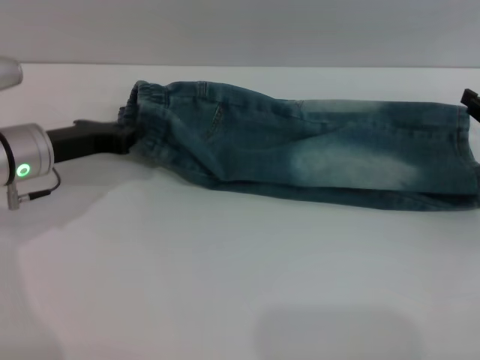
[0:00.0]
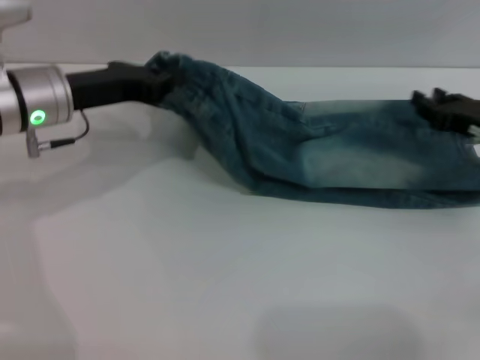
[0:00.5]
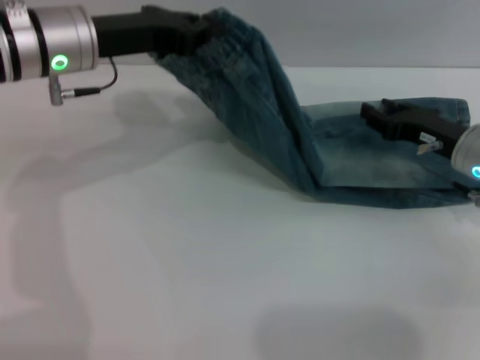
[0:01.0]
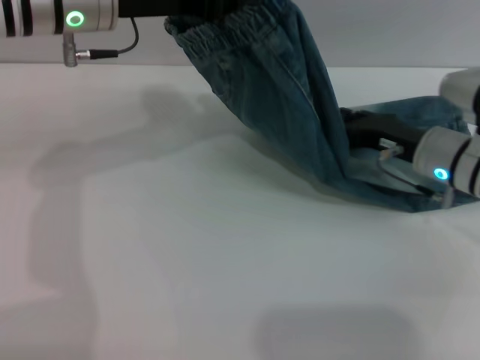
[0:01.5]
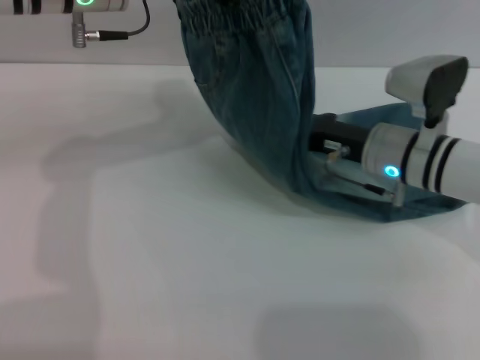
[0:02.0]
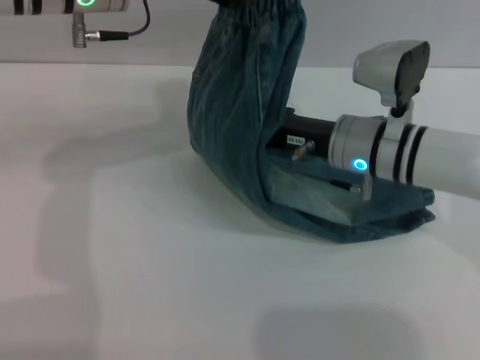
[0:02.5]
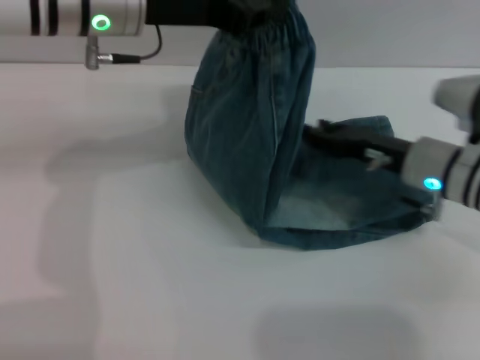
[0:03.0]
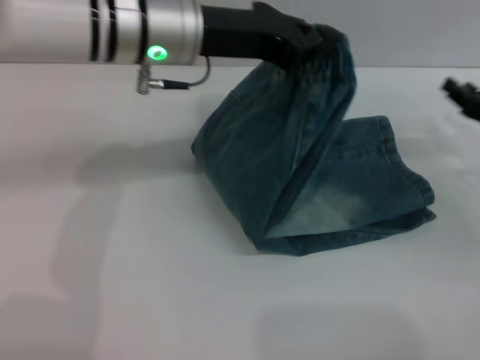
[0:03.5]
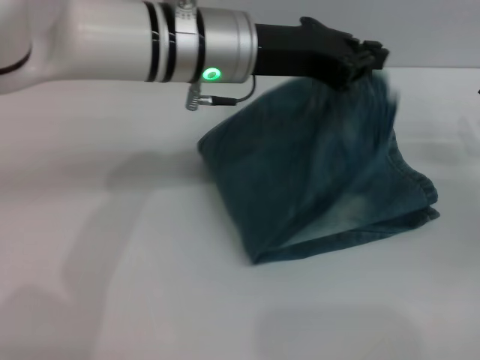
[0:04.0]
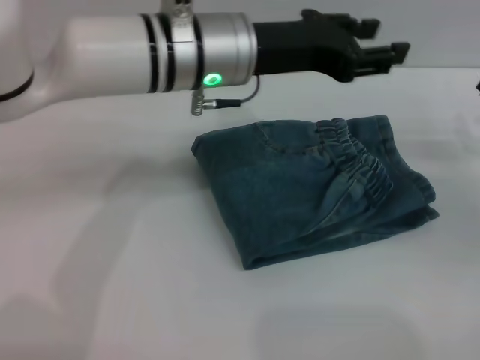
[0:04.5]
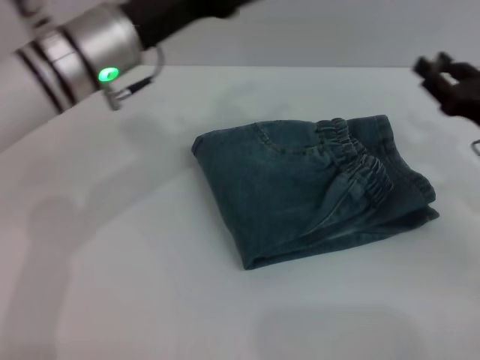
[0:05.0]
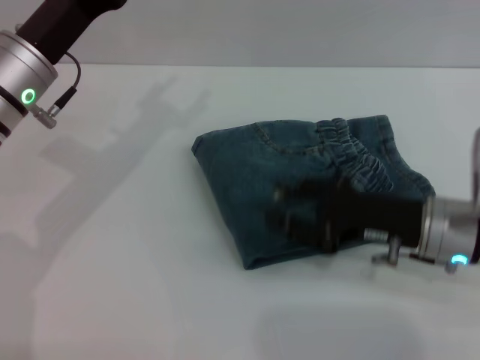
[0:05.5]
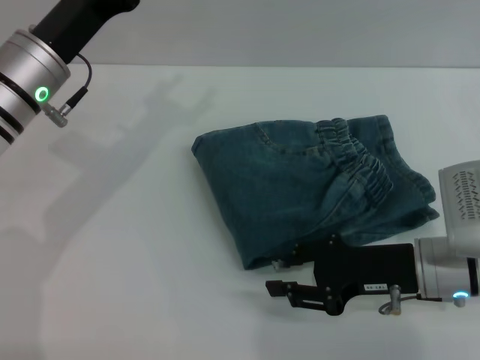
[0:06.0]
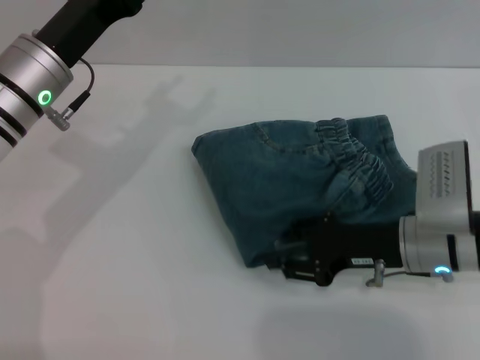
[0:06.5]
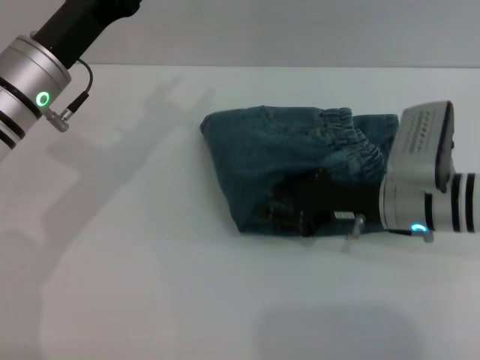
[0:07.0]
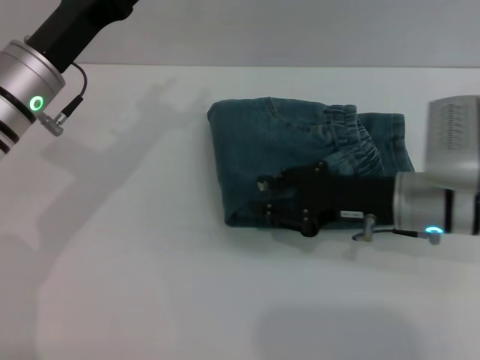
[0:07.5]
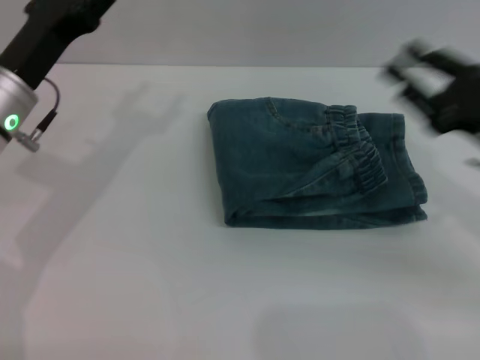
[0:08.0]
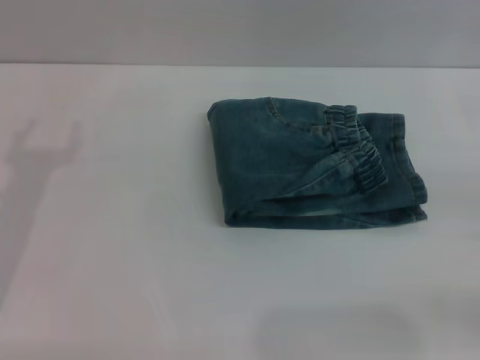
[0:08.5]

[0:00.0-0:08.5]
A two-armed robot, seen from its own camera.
Step, 0:00.0 to 0:04.0: Fold the pants from left to right with the left gripper.
Step, 0:04.5 to 0:07.5: Place the folded trousers onto the center area with the right grippers.
0:00.0 to 0:02.0: The left gripper is displaced upward and to the right by roughly 20 cm. Meanwhile the right gripper shifts about 20 cm to the left.
0:02.0 to 0:04.0: The left gripper heads to the right, covering roughly 10 cm, while the right gripper shifts some 20 cm to the right.
0:04.0 to 0:06.5: The right gripper shifts about 15 cm to the left. The left gripper moves to the left and downward, some 15 cm, and opens up.
0:06.5 to 0:08.5: The right gripper shifts about 20 cm to the right, while the left gripper is displaced to the left, backward and downward by about 15 cm.

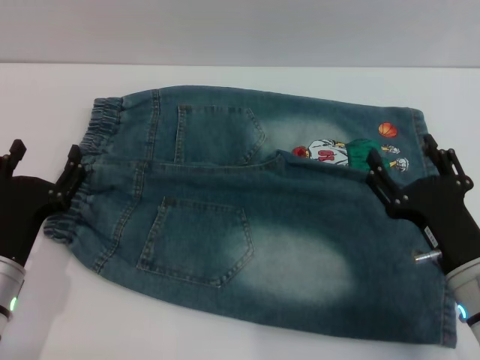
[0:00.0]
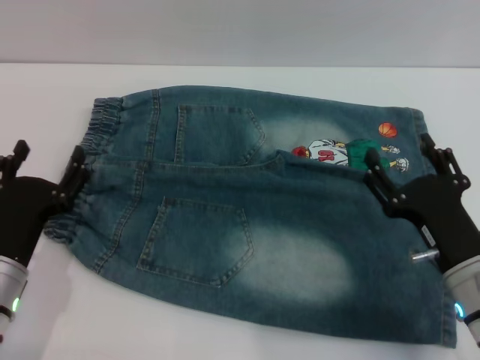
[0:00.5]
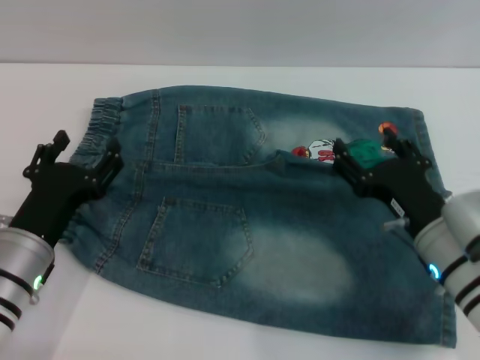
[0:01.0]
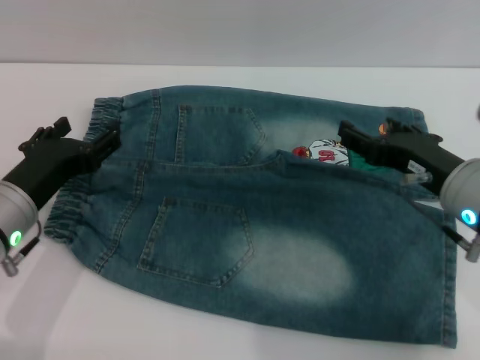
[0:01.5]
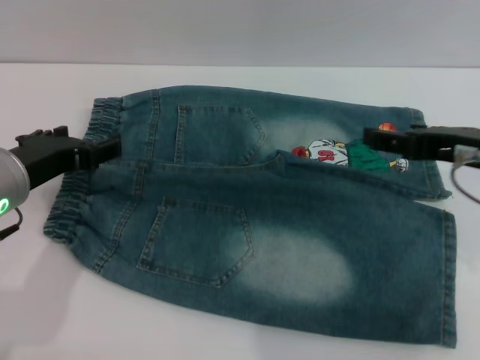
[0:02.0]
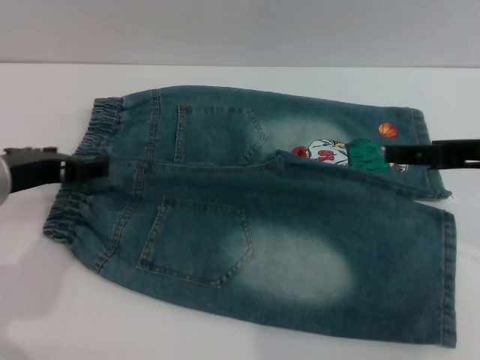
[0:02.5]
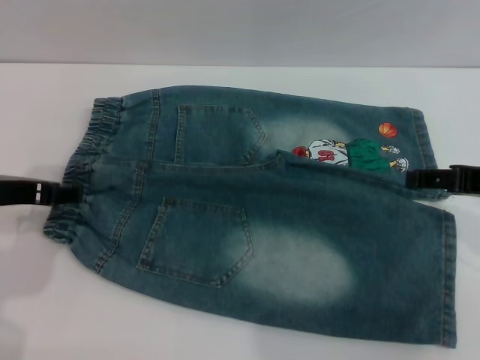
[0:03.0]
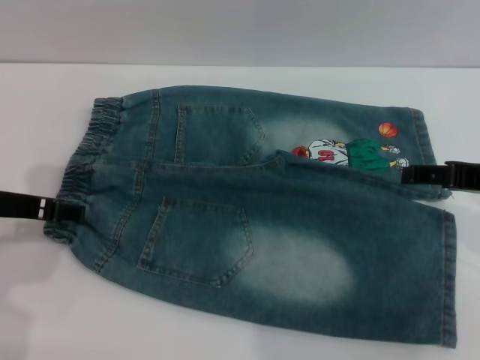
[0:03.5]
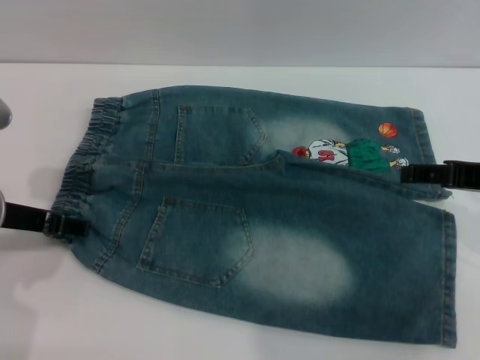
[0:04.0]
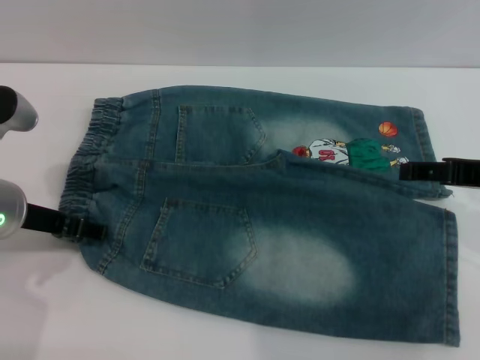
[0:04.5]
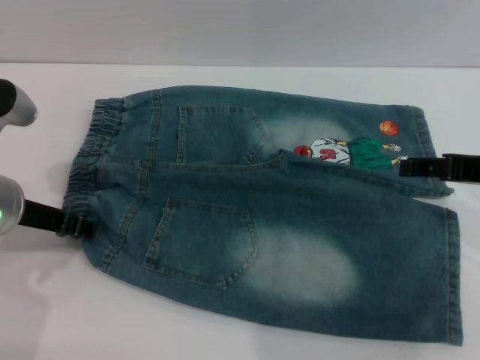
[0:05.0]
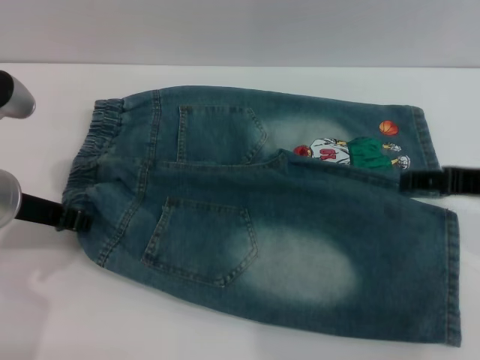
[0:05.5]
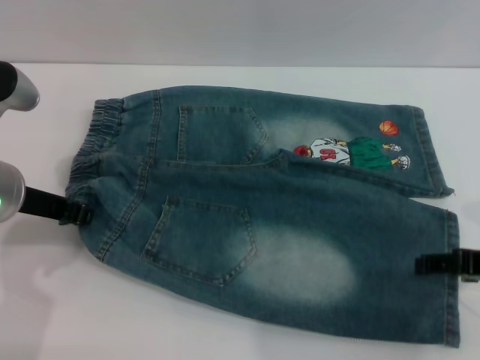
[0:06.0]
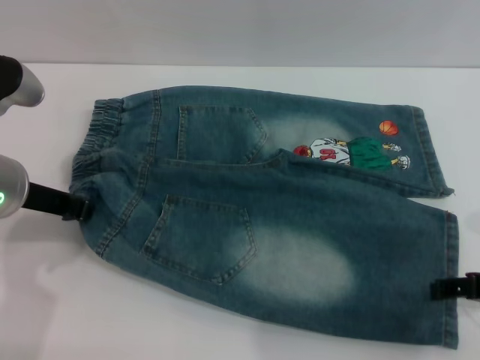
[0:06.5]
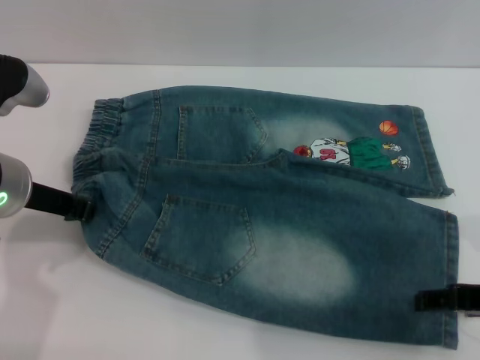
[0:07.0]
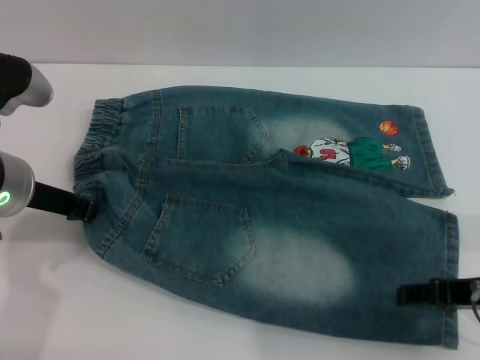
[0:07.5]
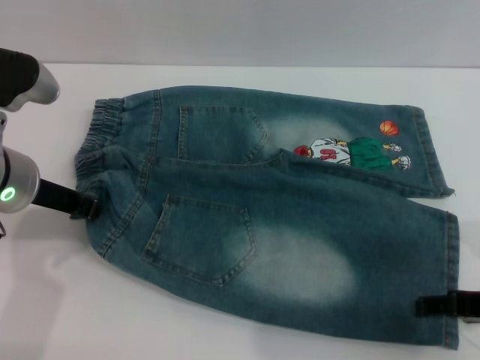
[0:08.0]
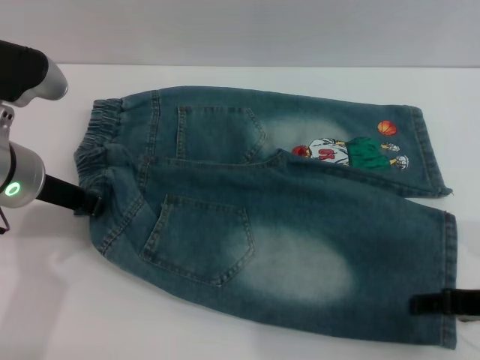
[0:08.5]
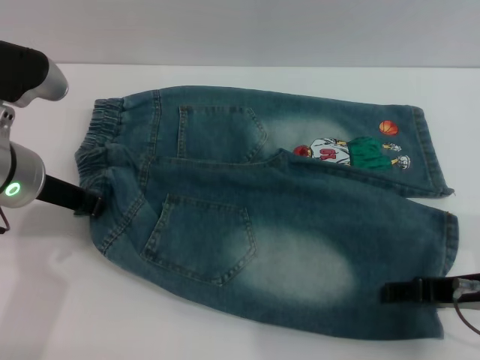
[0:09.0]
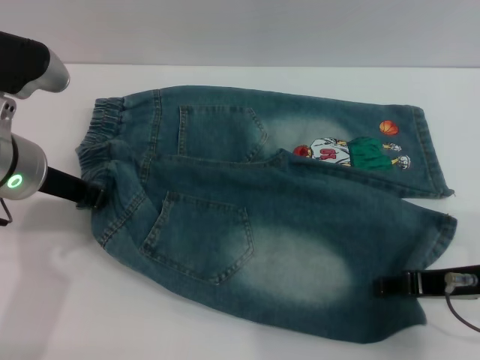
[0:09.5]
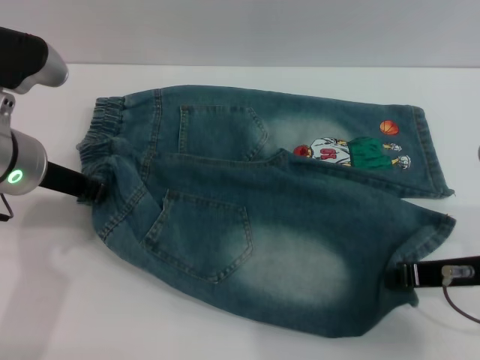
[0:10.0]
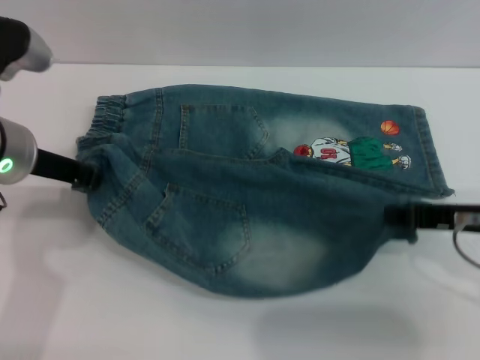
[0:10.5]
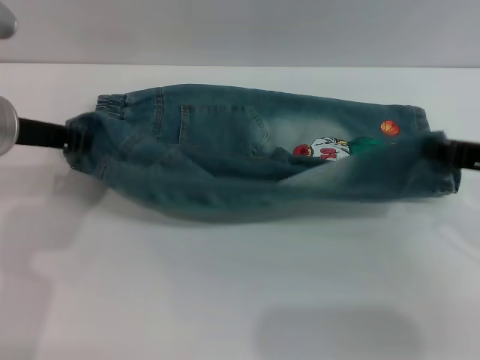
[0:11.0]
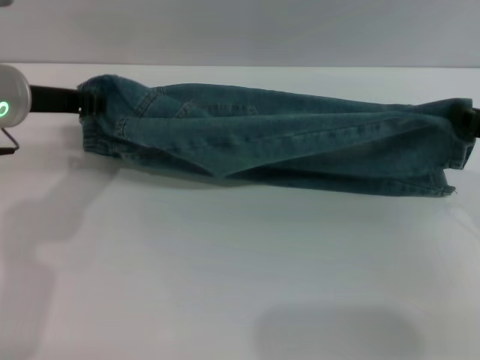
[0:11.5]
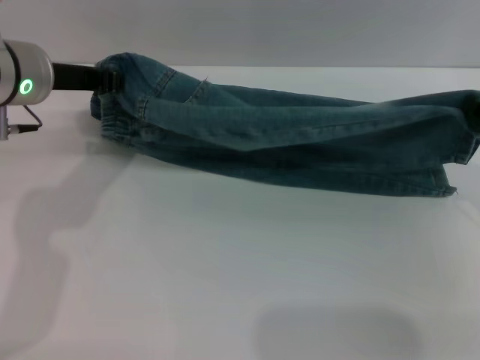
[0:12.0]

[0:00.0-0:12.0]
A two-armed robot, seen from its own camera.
0:00.0 to 0:02.0: The right gripper is displaced upward by some 15 cm; the left gripper shifts roughly 15 cm upward and forward.
0:04.0 to 0:06.0: The left gripper closes its fingers. Meanwhile the right gripper moves about 5 cm.
0:06.0 to 0:08.0: The grippers make only small movements.
0:08.0 to 0:10.0: The right gripper closes its fingers.
0:10.0 to 0:12.0: The left gripper goes about 5 cm forward; the right gripper shifts some 5 cm to the right.

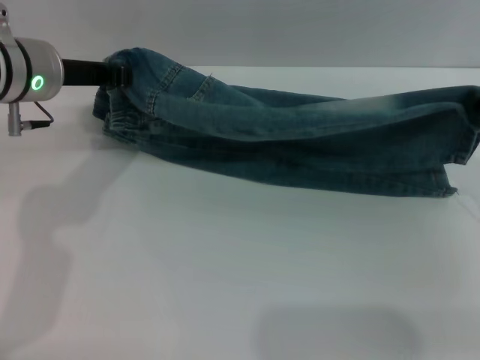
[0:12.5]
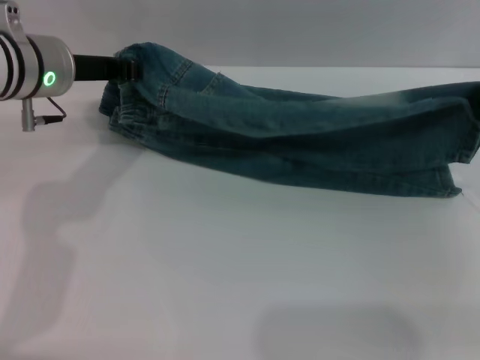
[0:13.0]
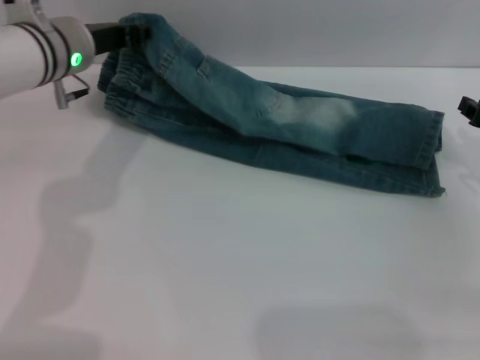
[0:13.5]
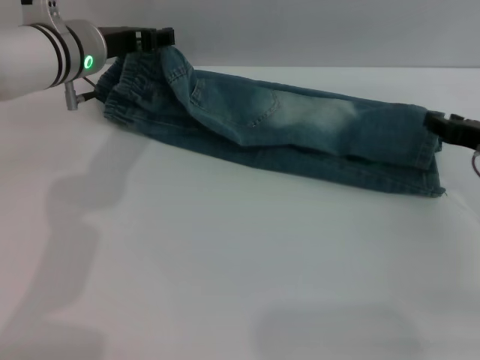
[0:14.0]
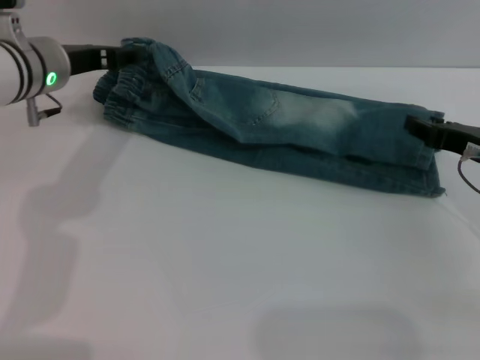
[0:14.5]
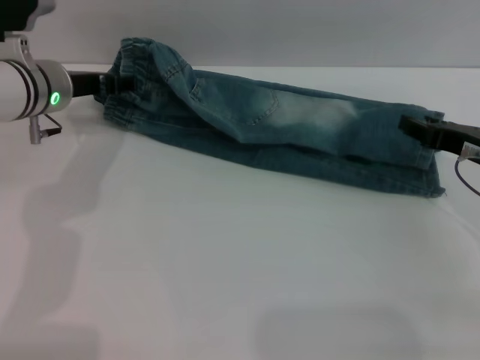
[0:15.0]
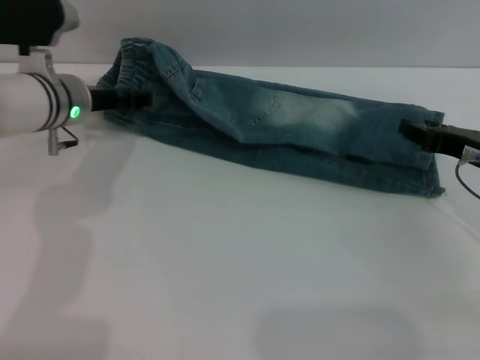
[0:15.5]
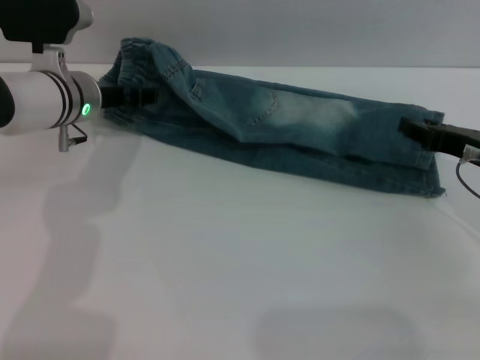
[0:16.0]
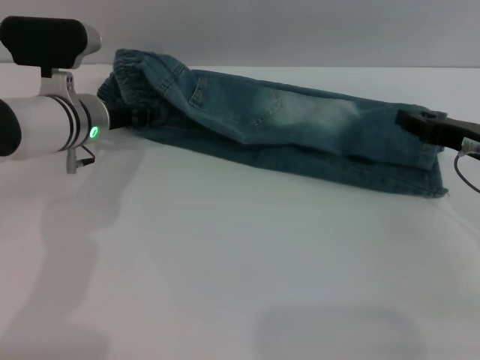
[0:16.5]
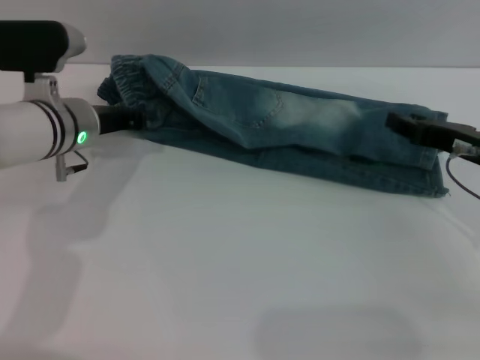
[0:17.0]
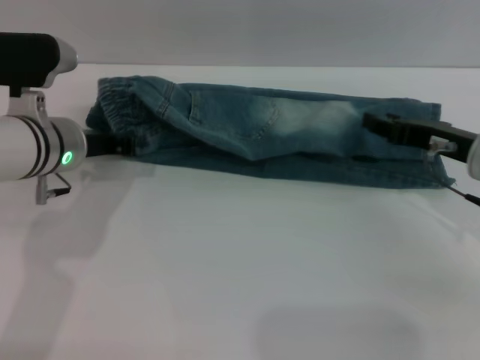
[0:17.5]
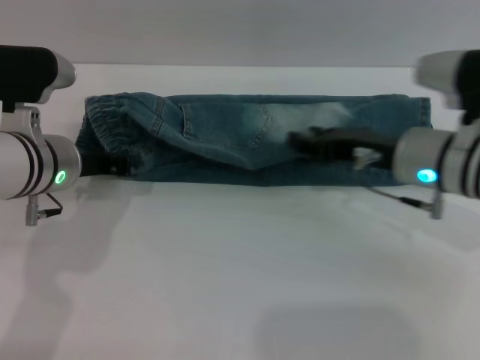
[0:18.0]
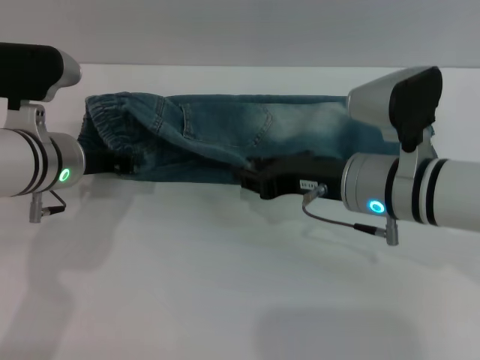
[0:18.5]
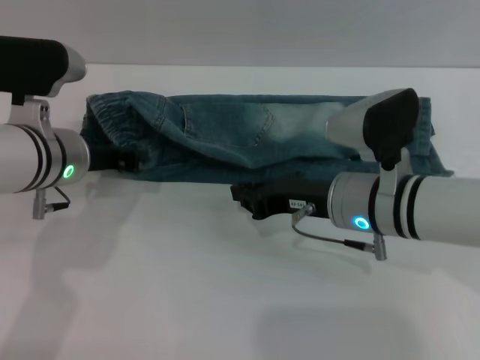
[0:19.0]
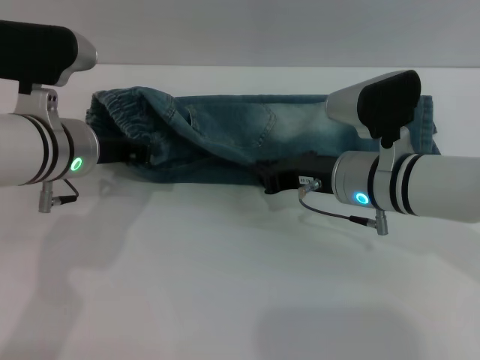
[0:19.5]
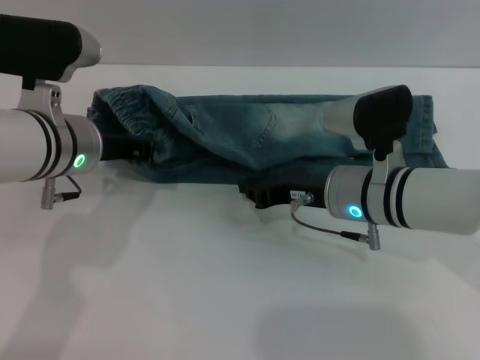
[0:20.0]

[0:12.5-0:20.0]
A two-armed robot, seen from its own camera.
Step, 0:12.5 to 0:14.5: Fold the bottom of the pants upward with both grippers.
0:12.5 to 0:14.5: The left gripper moves roughly 5 cm, and opens. Meanwhile the right gripper shifts some 5 cm downward, and opens up.
0:14.5 to 0:16.5: The left gripper heads downward, covering approximately 5 cm, and closes.
0:16.5 to 0:18.0: The right gripper heads to the left, covering about 10 cm. Meanwhile the left gripper moves backward, approximately 10 cm, and closes up.
0:18.0 to 0:20.0: The right gripper goes roughly 5 cm to the left, and closes its fingers.
